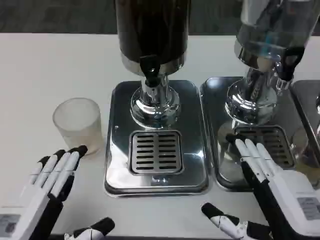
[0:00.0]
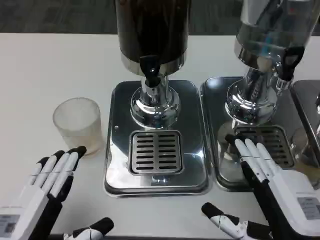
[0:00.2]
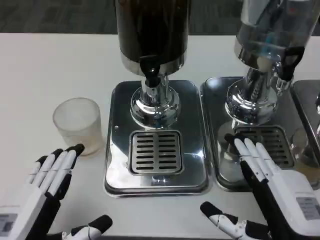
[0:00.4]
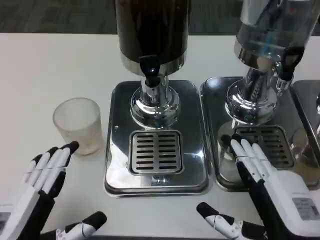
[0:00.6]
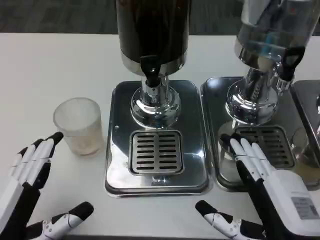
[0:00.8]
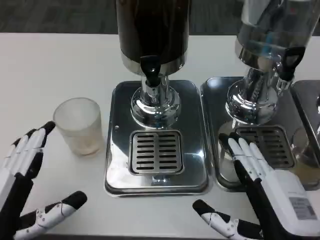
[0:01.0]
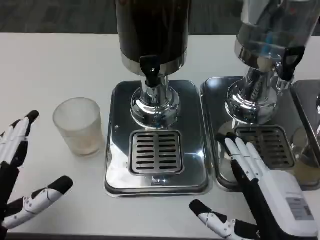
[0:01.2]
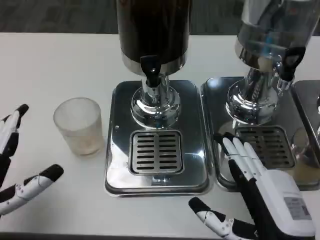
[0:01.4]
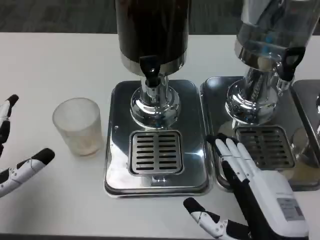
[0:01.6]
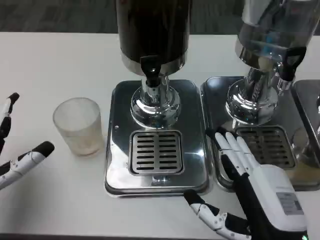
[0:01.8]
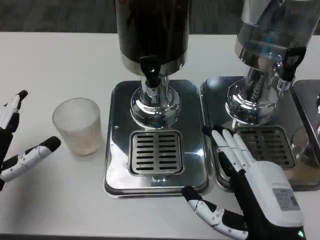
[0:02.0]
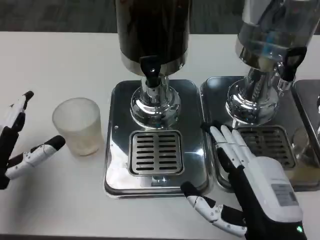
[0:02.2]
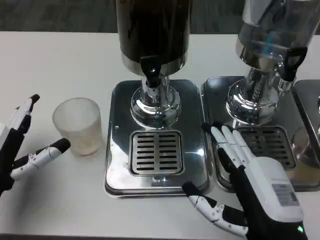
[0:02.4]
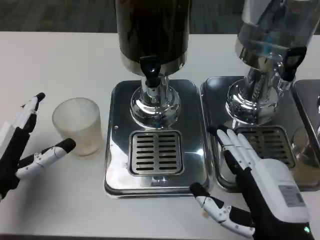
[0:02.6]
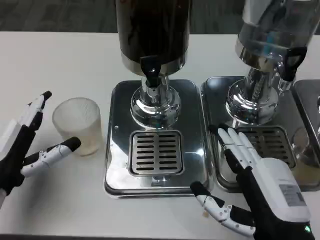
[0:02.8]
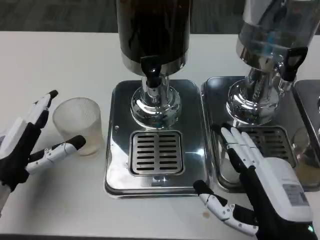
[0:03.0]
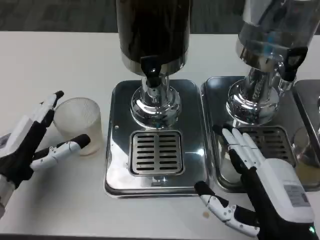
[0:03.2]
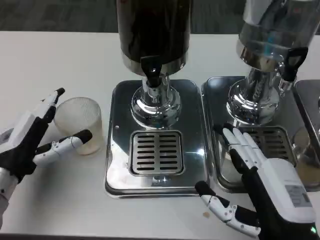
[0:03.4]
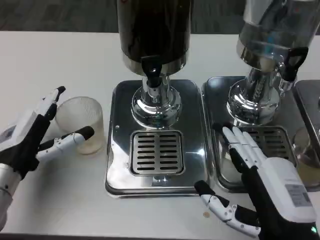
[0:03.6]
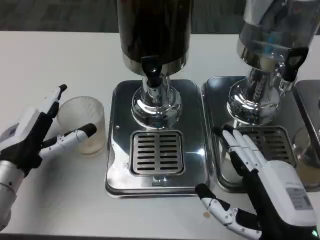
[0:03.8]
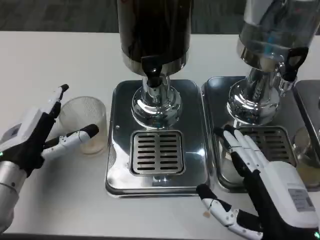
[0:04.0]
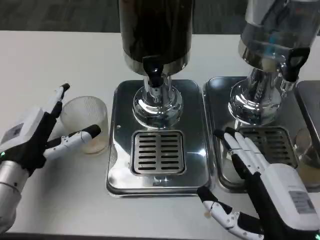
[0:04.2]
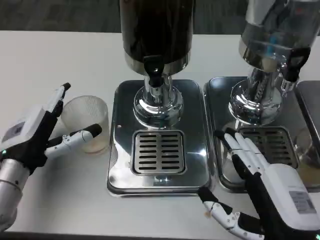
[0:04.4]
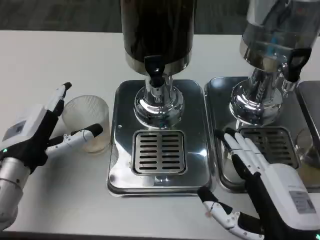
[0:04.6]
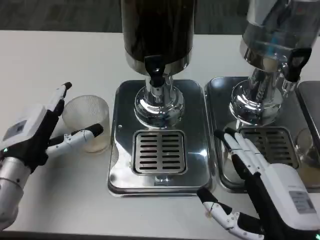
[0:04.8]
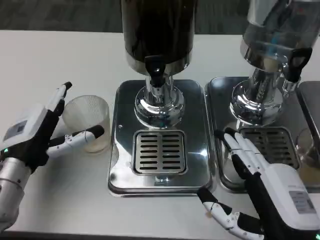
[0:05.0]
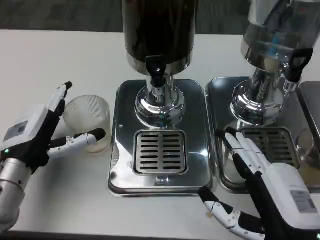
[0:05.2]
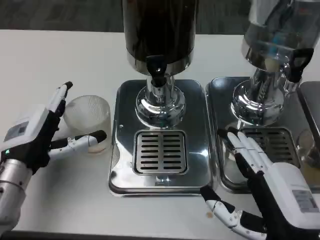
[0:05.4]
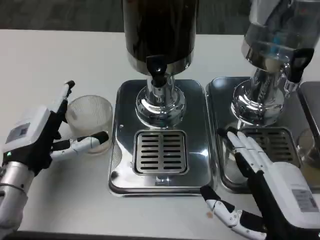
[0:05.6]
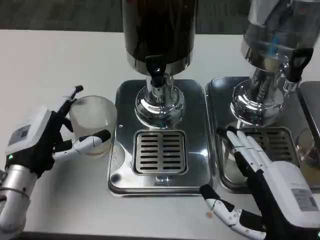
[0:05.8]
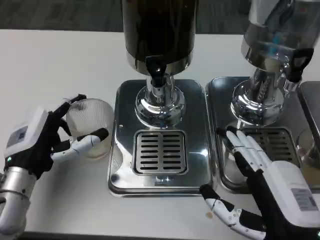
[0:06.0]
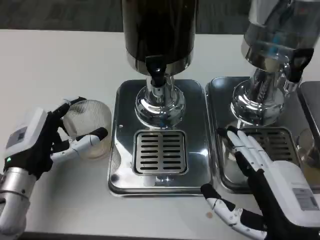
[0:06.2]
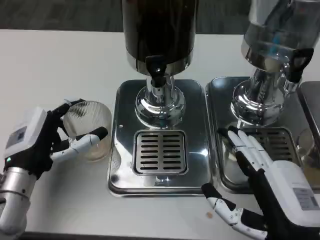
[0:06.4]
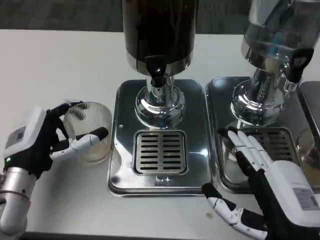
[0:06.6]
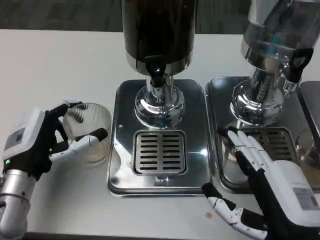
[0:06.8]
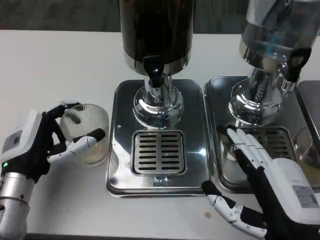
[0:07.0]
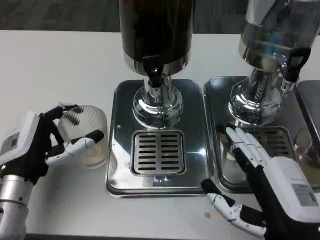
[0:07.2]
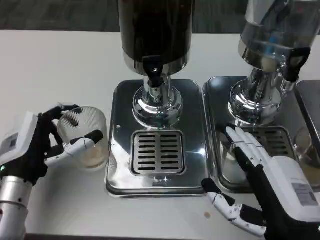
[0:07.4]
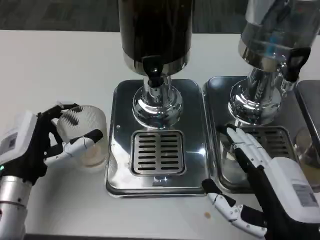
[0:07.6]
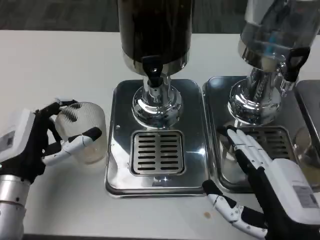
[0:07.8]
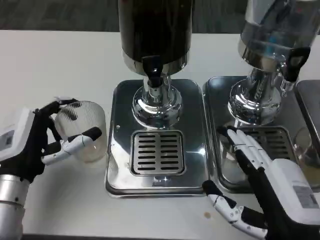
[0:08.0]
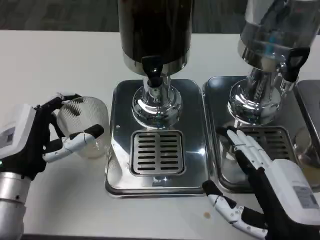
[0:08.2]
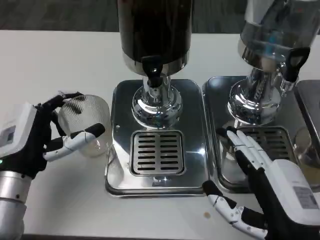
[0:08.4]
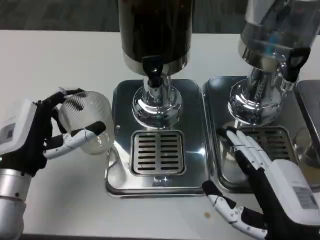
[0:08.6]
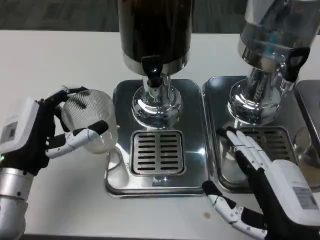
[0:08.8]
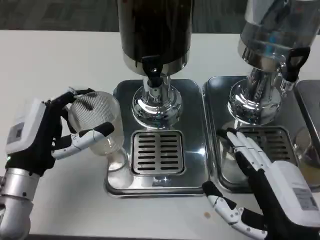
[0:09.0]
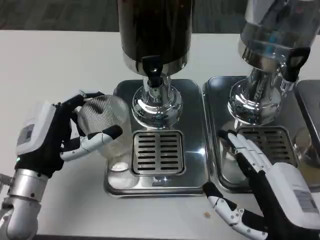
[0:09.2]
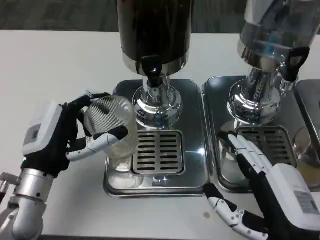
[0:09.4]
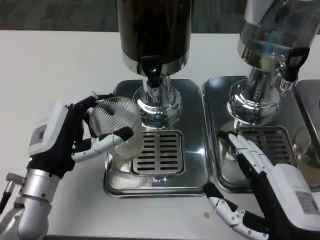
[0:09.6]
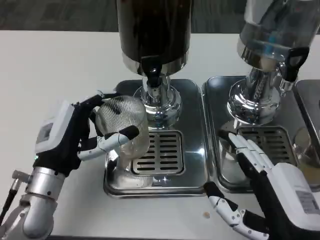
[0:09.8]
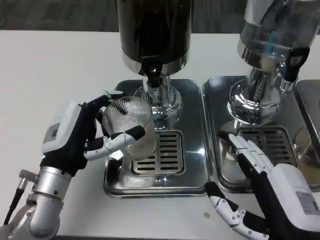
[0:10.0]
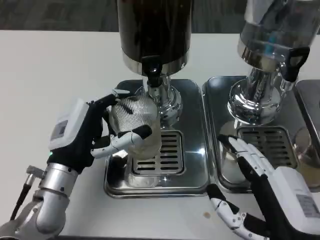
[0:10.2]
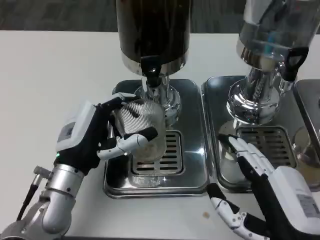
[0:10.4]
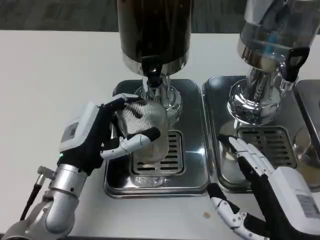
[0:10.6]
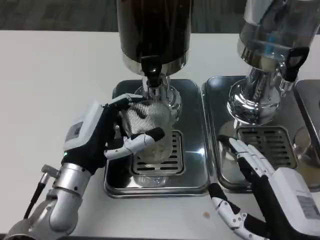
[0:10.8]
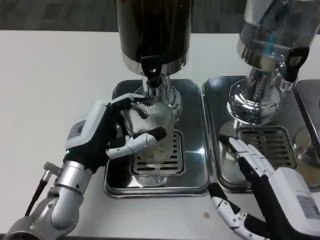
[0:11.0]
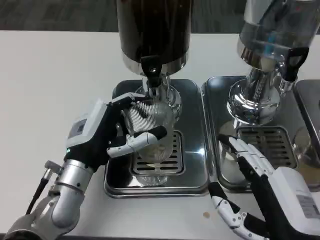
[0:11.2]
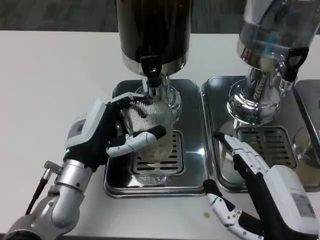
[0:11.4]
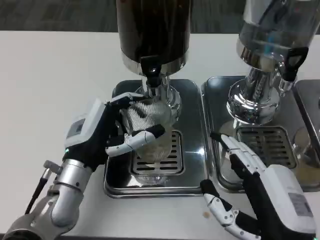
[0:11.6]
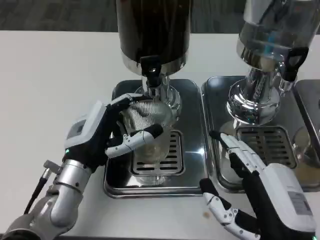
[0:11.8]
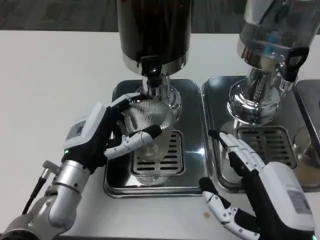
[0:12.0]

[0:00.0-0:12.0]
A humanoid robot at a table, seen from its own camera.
Task of the whole recording: Grasp the cup under the faucet to collect the drink, then remove the cup.
0:00.0 to 0:01.6: The left hand moves forward and to the left, approximately 10 cm.
0:01.6 to 0:03.0: The left hand shifts about 5 cm forward.
0:07.6 to 0:09.0: There are only small adjustments of the hands.
0:09.0 to 0:10.4: The left hand travels to the right by approximately 5 cm.
0:10.4 to 0:12.0: The hands move only a little.

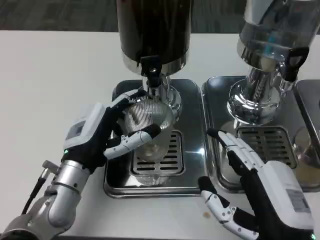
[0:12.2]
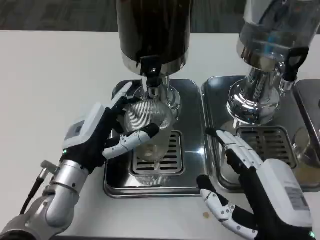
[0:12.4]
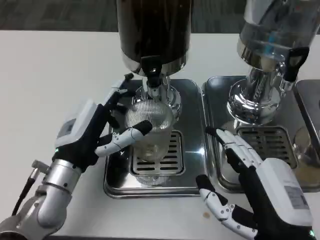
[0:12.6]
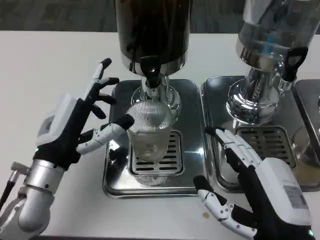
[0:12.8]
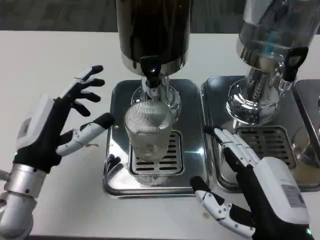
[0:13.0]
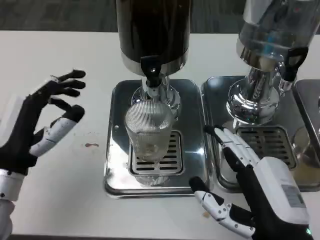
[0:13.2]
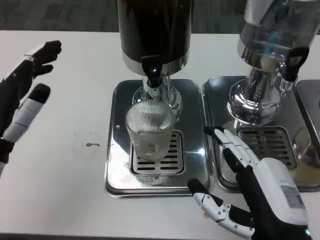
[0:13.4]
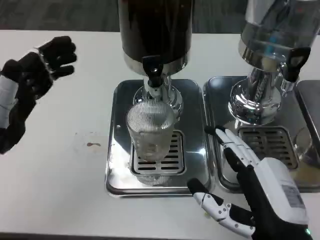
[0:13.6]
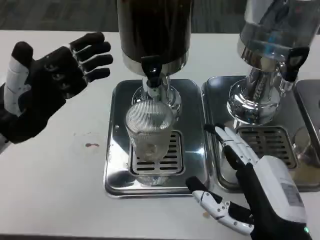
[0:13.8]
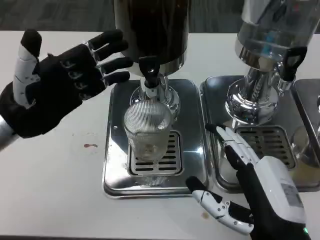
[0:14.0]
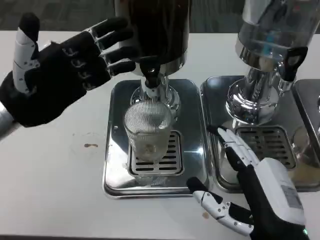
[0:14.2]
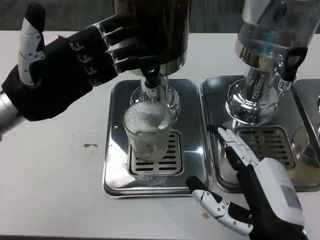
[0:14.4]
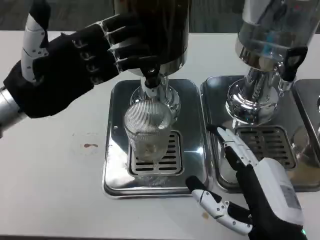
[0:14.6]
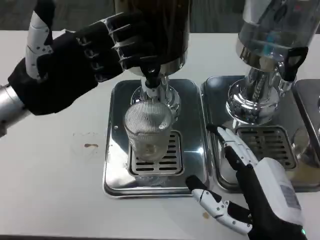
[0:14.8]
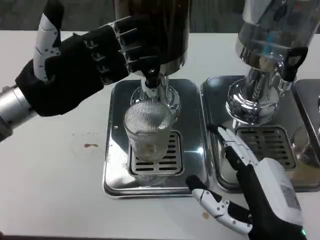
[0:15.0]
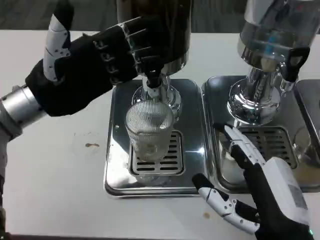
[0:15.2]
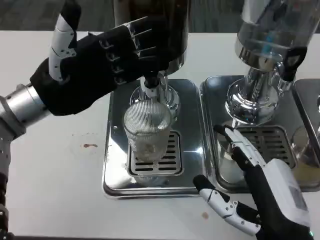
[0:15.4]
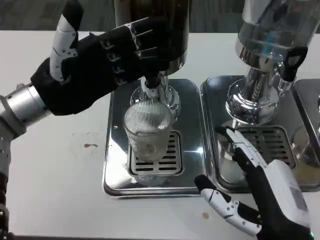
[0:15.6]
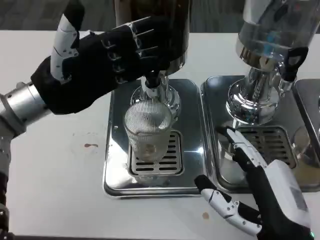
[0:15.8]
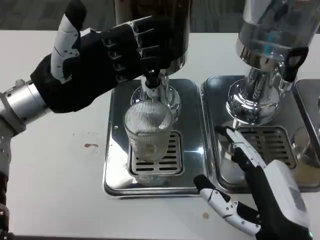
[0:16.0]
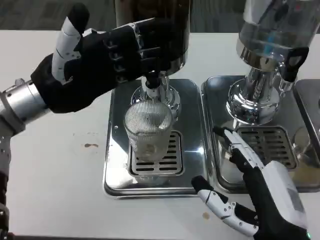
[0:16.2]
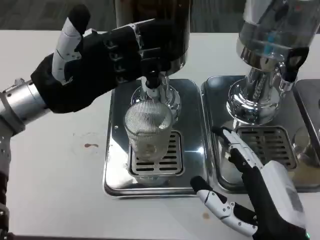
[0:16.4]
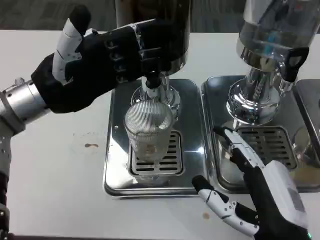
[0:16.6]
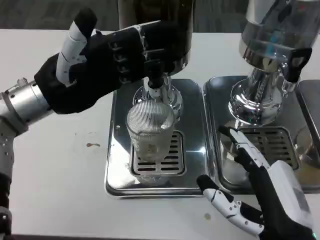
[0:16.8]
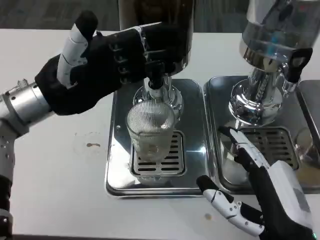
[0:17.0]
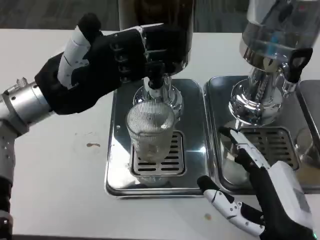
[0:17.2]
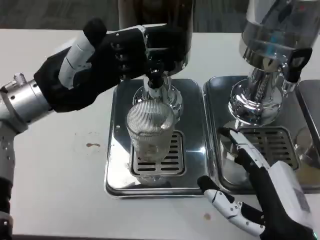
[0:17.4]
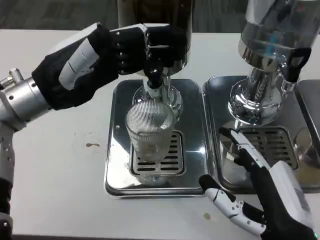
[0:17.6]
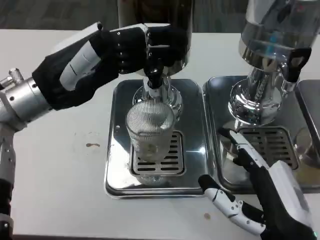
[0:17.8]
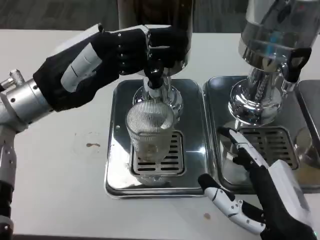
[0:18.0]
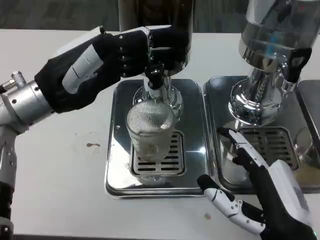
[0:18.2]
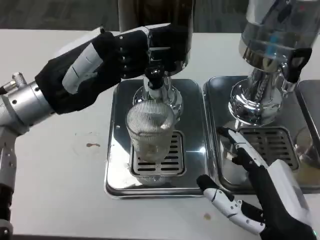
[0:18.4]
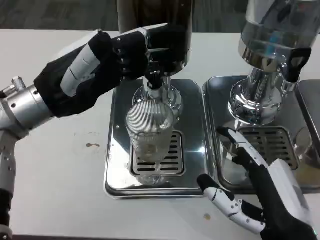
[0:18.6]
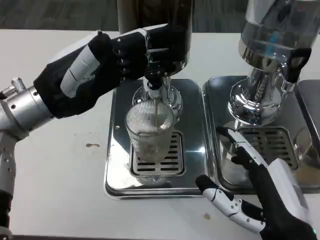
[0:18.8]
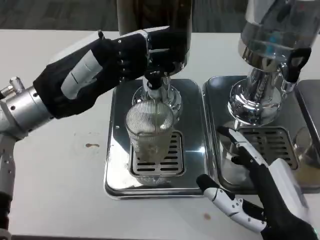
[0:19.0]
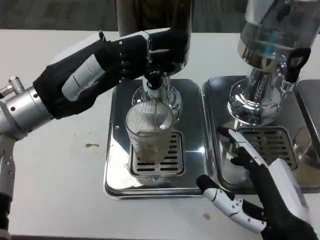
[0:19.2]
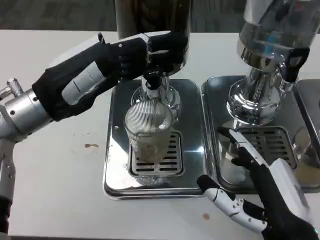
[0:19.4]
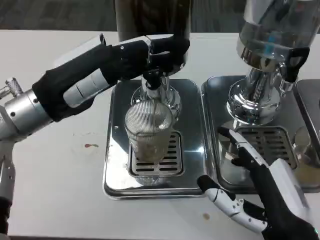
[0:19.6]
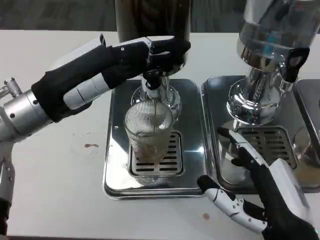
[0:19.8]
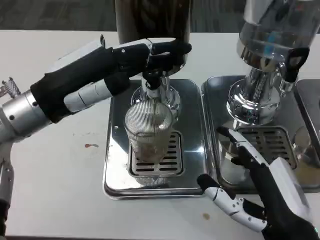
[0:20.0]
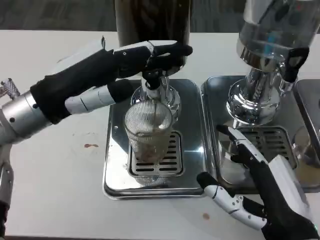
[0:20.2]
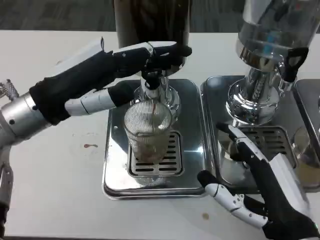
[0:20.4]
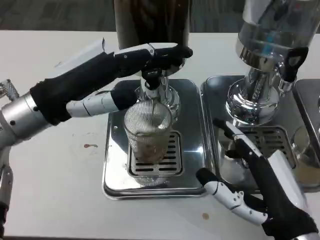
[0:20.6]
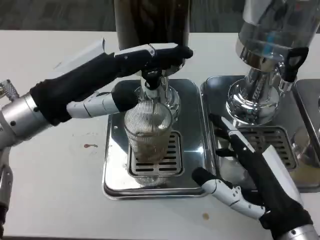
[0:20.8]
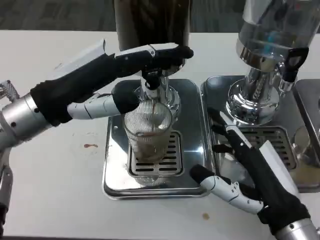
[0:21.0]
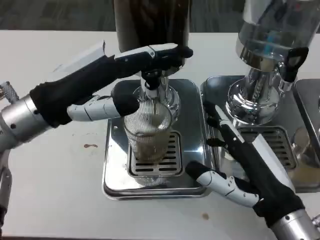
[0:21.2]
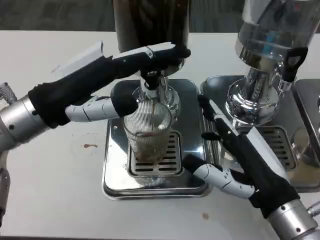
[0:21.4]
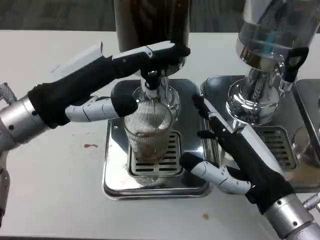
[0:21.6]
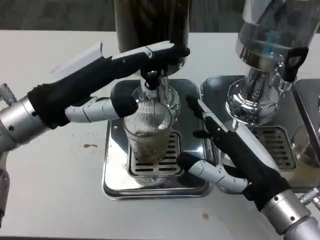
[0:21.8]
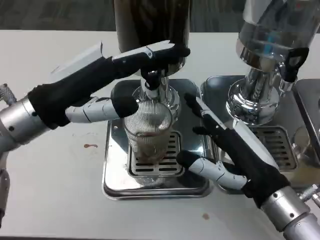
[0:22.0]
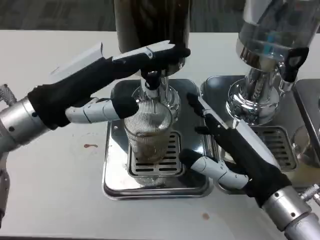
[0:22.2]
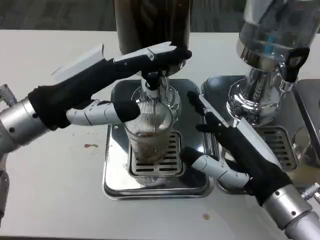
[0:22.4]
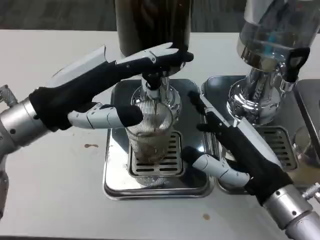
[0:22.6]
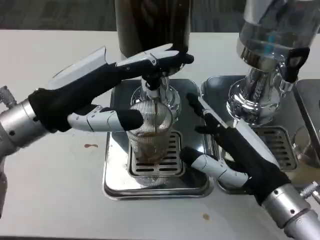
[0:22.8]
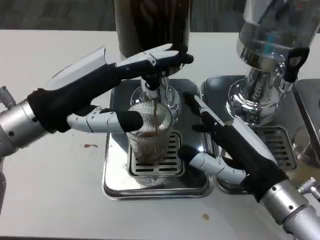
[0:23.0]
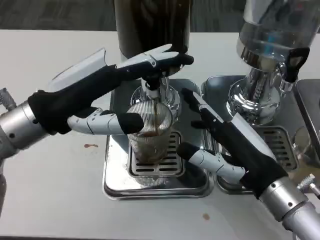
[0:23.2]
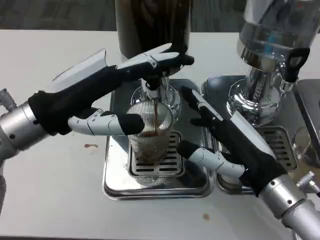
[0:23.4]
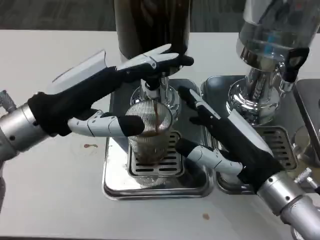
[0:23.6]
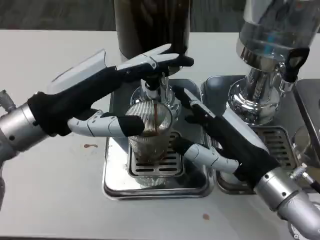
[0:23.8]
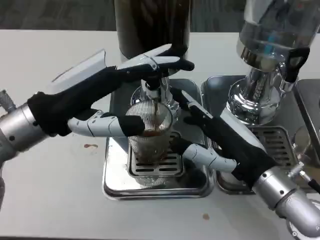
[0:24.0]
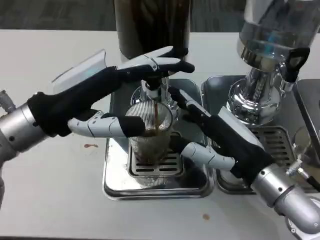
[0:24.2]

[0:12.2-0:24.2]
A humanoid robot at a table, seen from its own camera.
Task of the whole recording: Grasp the cup under the faucet to collect the drink, then remove the cup.
0:12.2 to 0:13.8: The left hand shifts roughly 15 cm to the left and upward.
0:13.8 to 0:15.2: The left hand shifts by roughly 5 cm.
0:15.2 to 0:16.6: The hands move only a little.
0:21.2 to 0:22.6: The hands make only small movements.
0:22.6 to 0:24.2: The hands move only a little.
